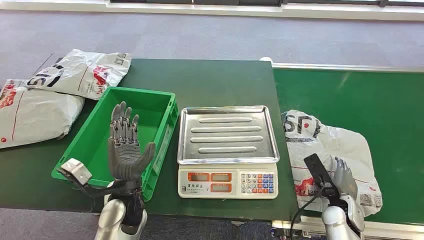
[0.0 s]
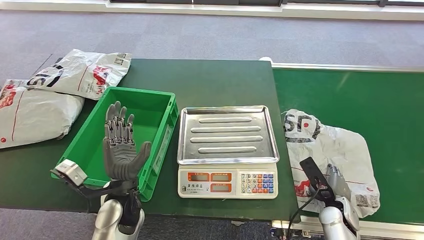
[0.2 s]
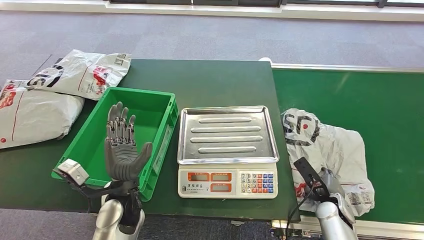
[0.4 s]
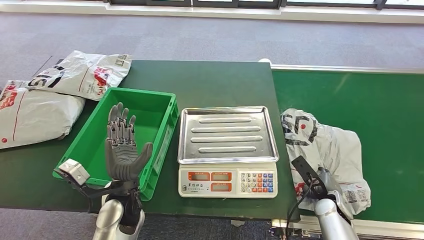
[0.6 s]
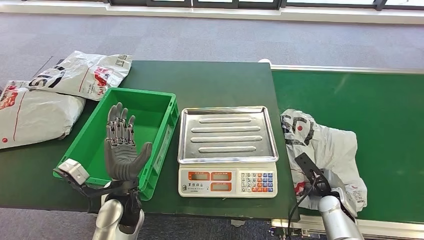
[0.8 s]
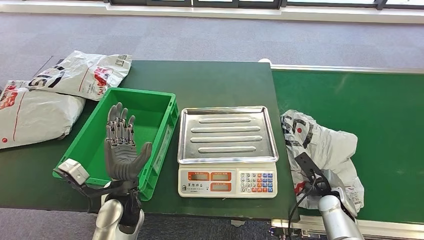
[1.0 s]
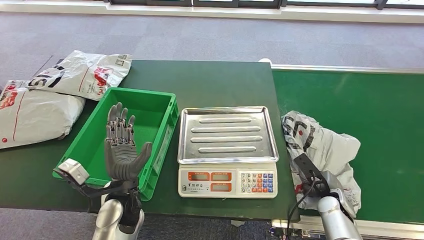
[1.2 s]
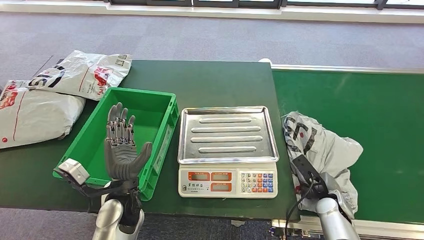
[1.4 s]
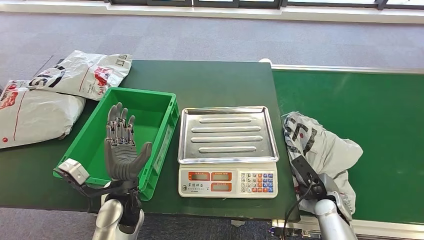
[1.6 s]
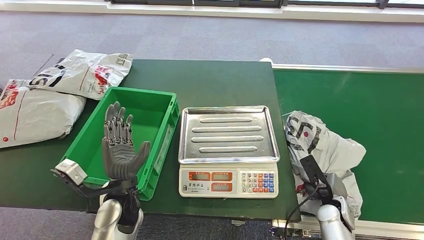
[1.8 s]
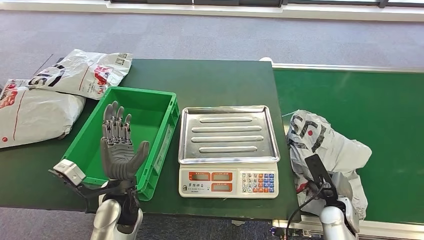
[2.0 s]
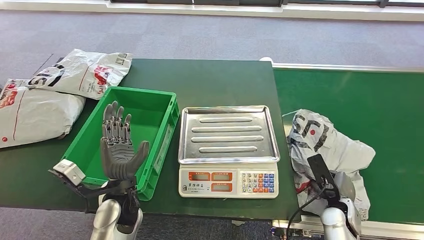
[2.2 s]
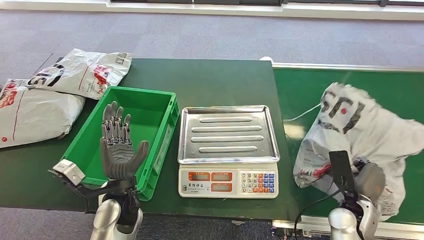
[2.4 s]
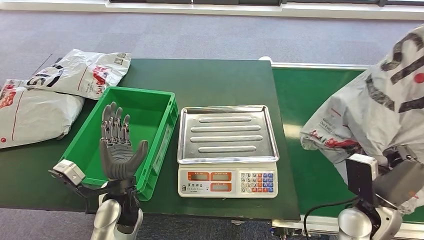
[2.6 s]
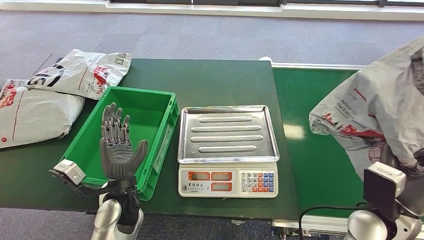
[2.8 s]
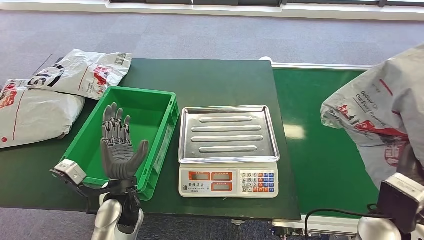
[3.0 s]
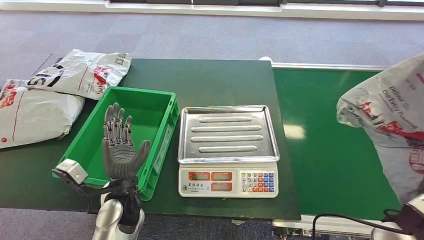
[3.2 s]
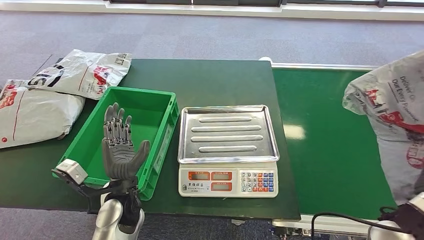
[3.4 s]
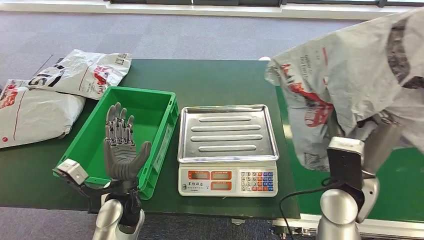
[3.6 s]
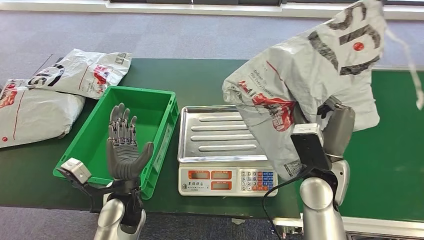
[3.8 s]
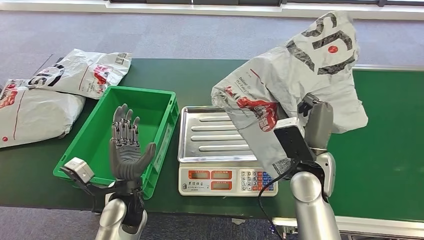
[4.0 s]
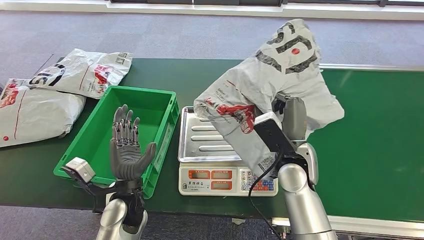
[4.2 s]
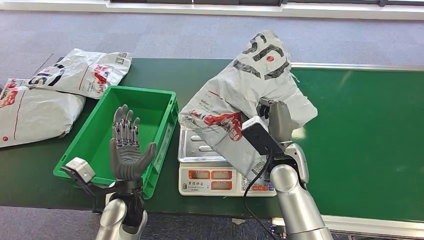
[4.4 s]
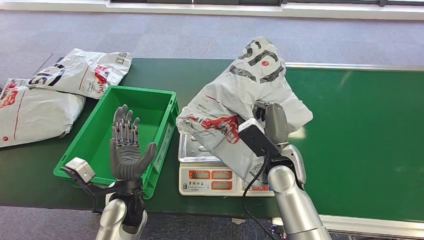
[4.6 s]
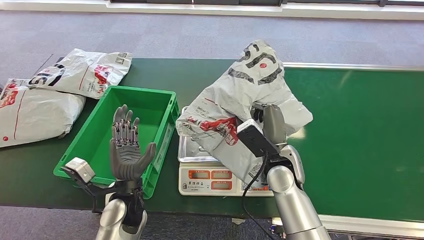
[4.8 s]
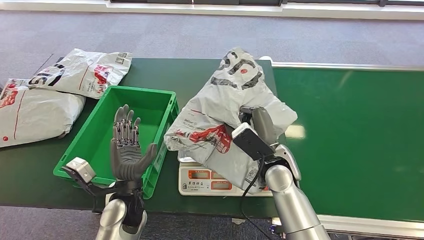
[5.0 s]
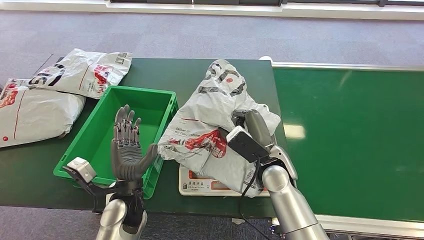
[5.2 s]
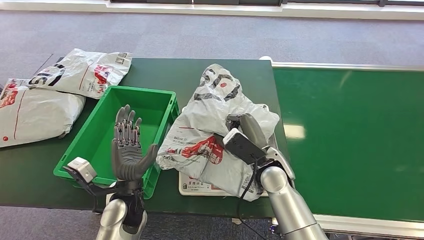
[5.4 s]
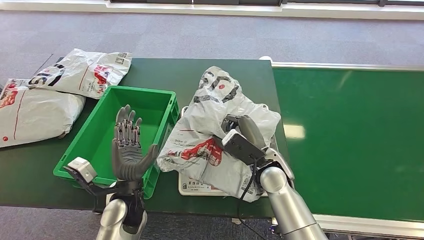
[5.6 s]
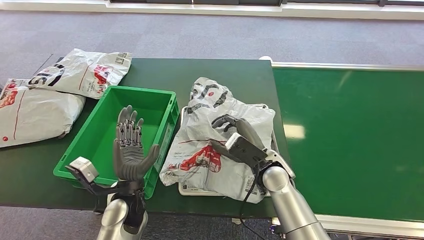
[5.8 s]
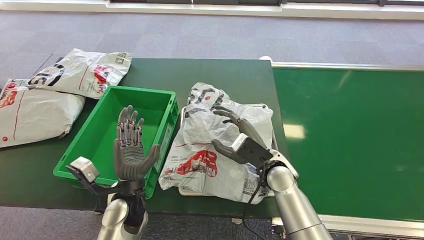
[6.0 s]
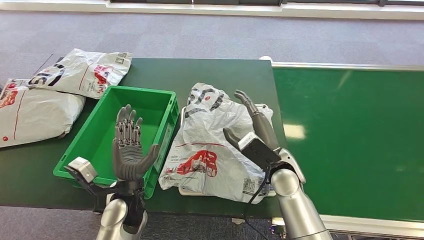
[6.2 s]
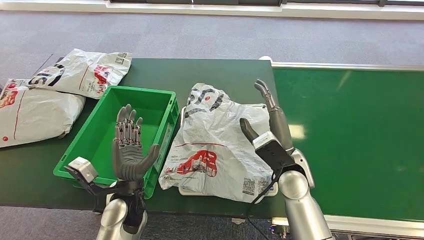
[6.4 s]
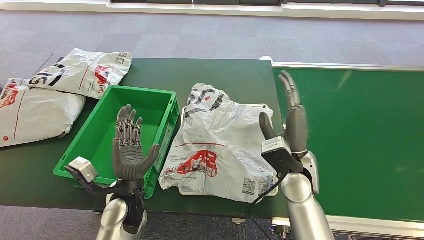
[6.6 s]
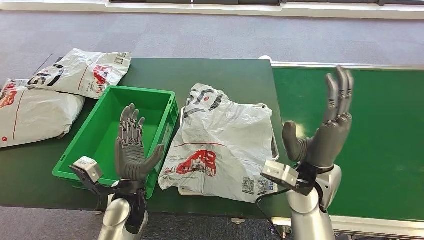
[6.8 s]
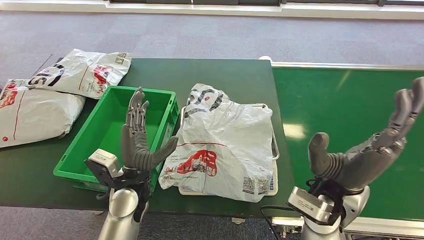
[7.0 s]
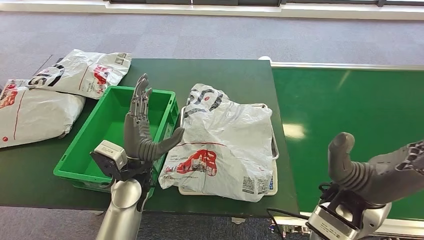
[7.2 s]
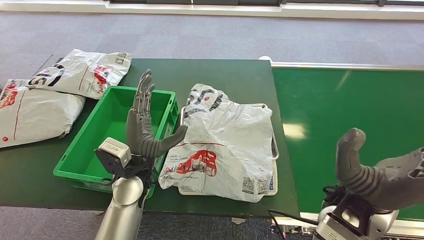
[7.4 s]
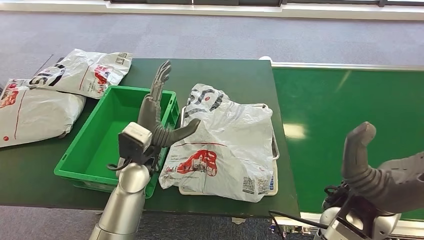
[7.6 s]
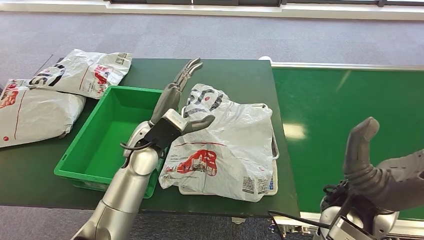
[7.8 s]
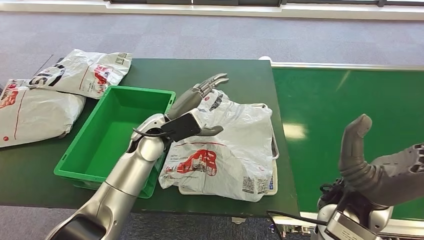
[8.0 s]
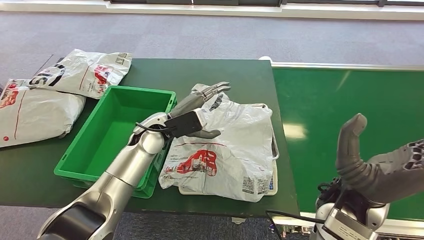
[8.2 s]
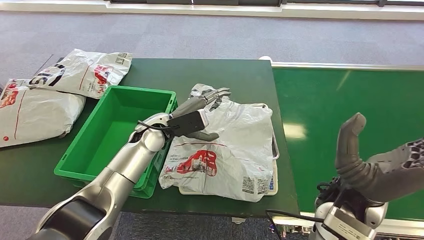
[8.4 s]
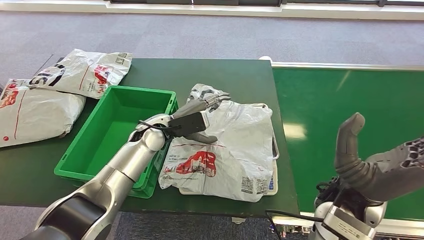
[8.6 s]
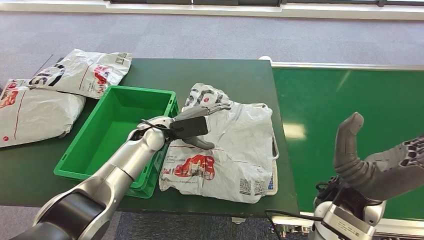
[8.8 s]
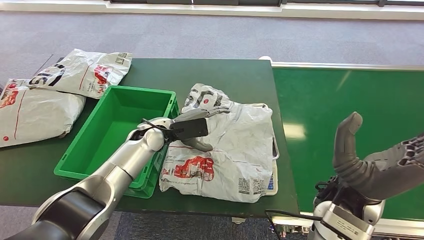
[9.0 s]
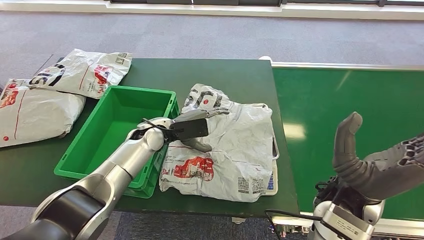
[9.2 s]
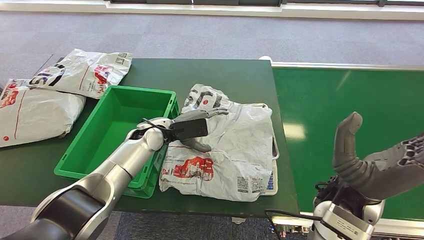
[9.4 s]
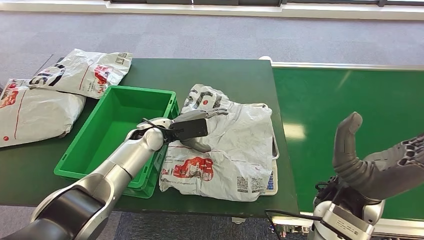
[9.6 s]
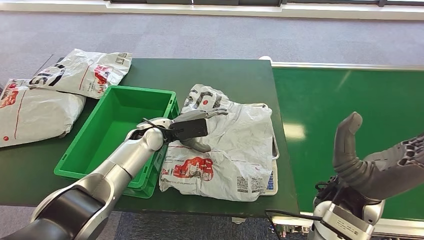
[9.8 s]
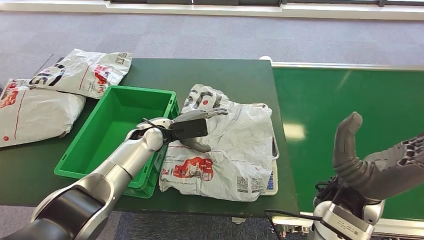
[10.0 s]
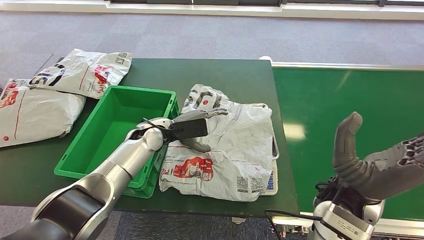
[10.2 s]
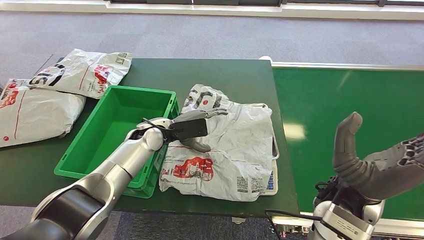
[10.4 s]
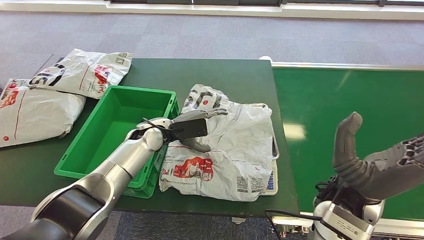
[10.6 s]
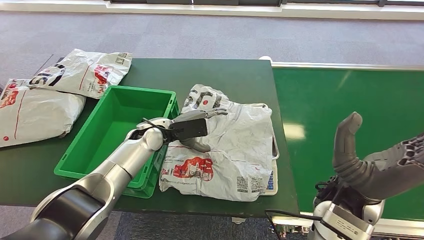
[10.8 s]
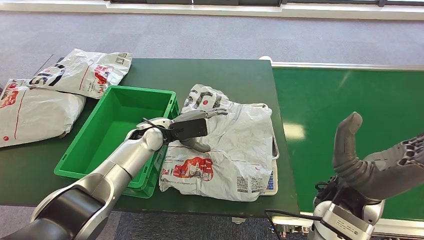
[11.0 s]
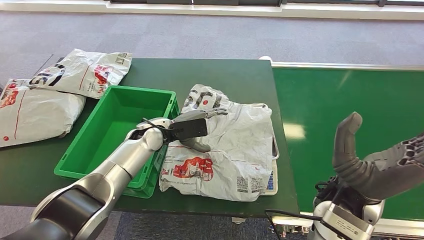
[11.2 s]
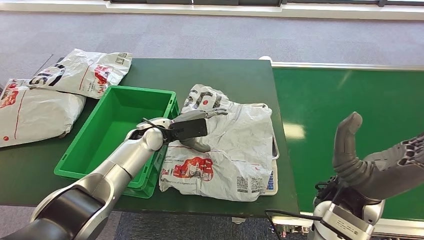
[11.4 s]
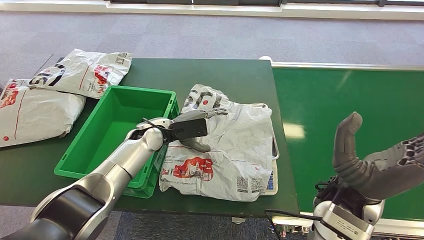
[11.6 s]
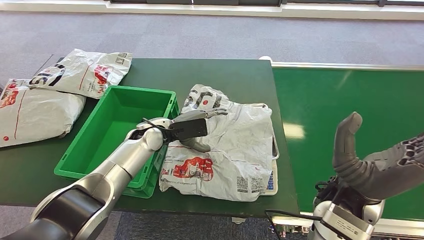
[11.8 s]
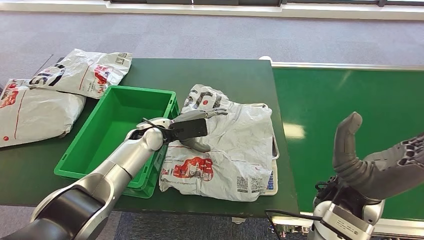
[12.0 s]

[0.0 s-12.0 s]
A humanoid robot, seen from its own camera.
Step, 0.0 to 2.6 s: Pick up the package from the conveyor belt.
Step, 2.8 to 6.4 s: Place the package onto the inbound machine.
6.0 to 7.6 s: The left hand moves upward and forward, approximately 10 cm, while the right hand heads upward, backward and to the right, covering approximately 20 cm.
7.6 to 9.0 s: The left hand moves forward, some 10 cm.
9.0 to 12.0 s: The two hands keep their place.

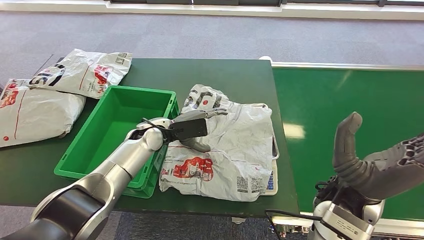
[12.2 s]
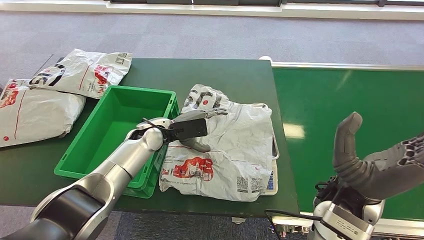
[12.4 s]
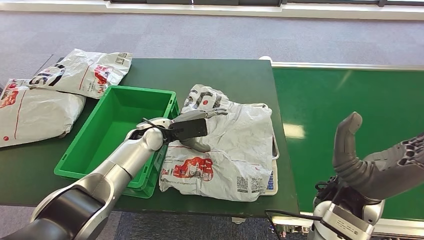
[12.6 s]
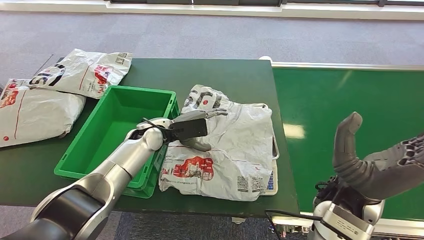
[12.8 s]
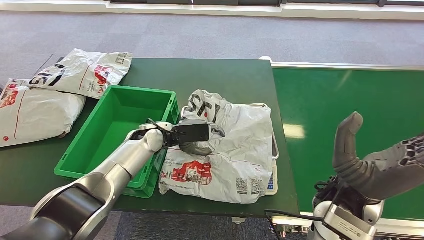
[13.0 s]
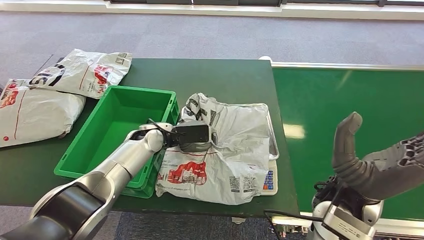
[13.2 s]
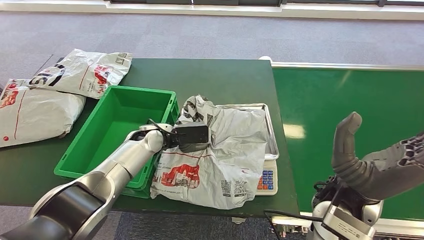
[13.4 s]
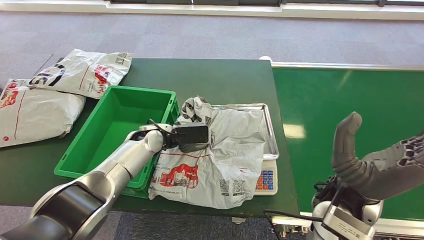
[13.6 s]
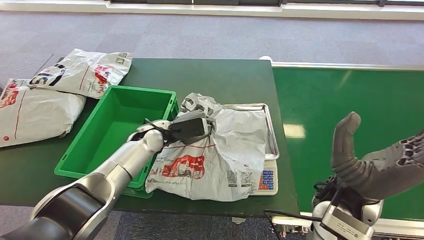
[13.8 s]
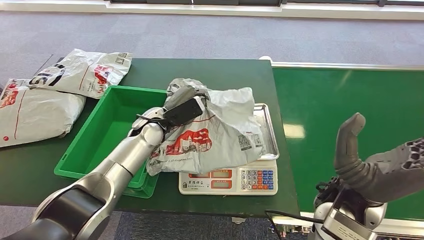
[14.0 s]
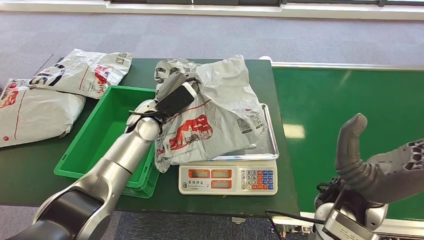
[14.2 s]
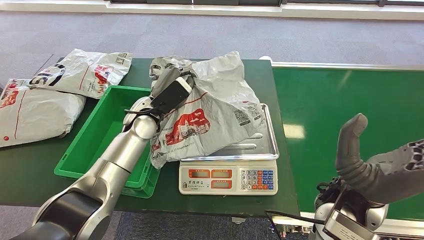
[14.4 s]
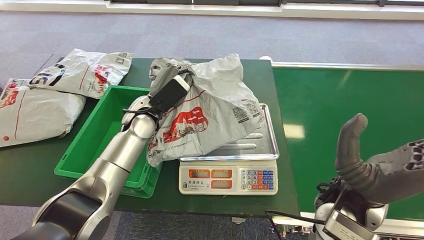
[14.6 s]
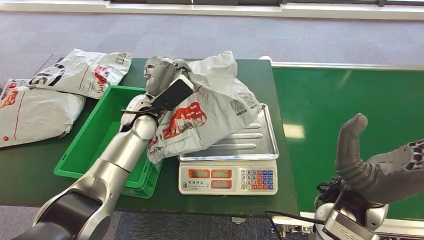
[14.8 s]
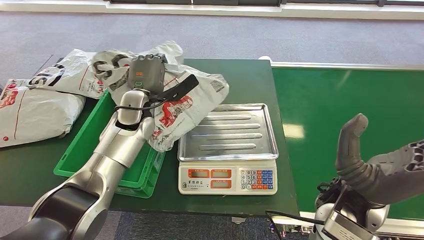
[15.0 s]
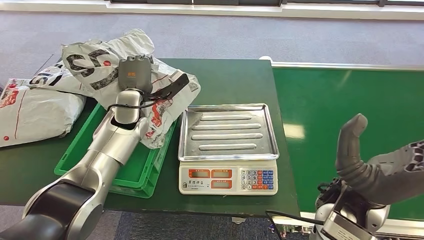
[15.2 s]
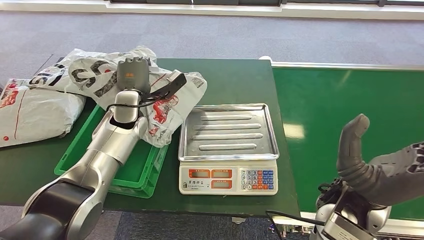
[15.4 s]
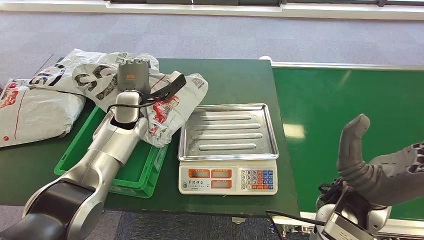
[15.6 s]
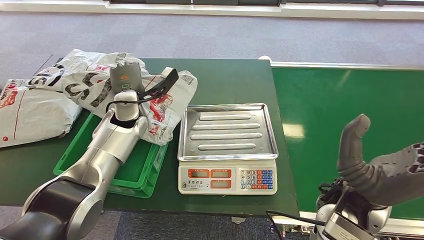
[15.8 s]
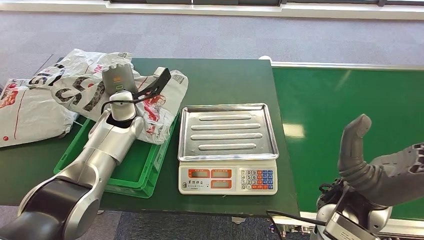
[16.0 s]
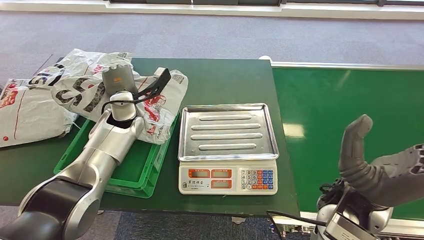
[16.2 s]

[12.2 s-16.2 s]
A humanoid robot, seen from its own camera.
Step, 12.2 to 15.4 s: Pick up the package from the inbound machine.
Step, 15.6 to 16.2 s: Place the package into the parcel locker.
12.2 to 13.6 s: The hands move only a little.
